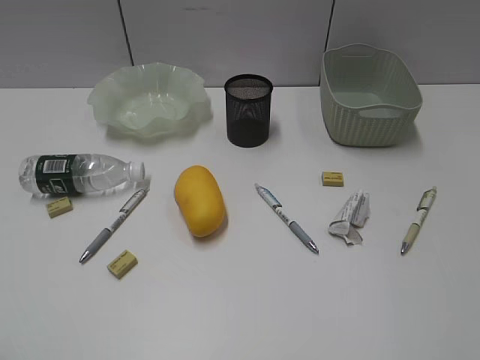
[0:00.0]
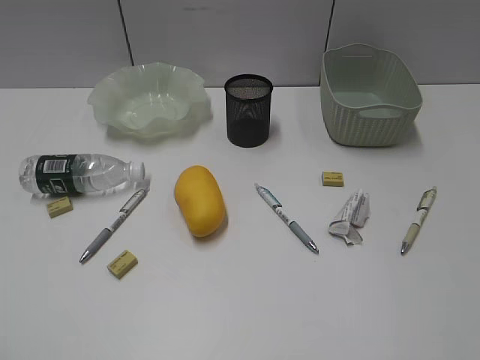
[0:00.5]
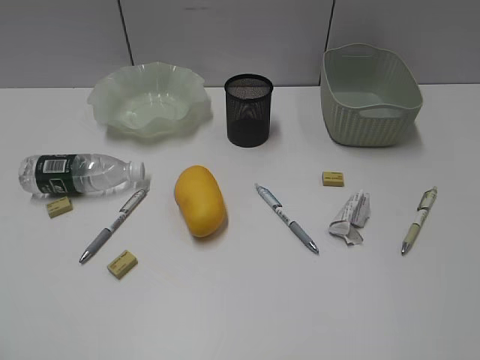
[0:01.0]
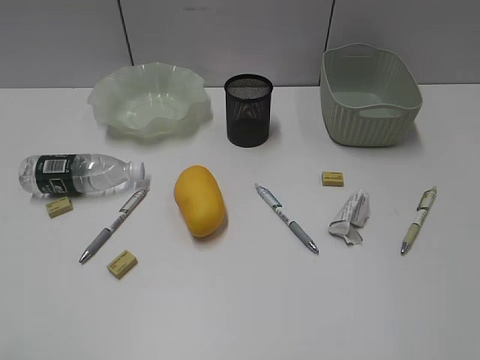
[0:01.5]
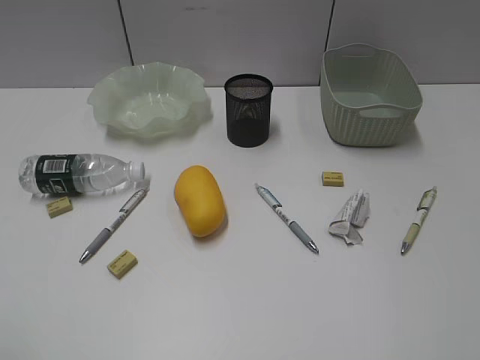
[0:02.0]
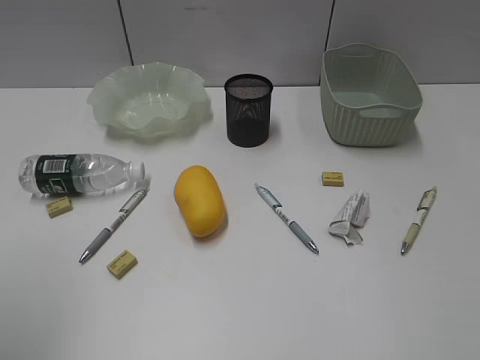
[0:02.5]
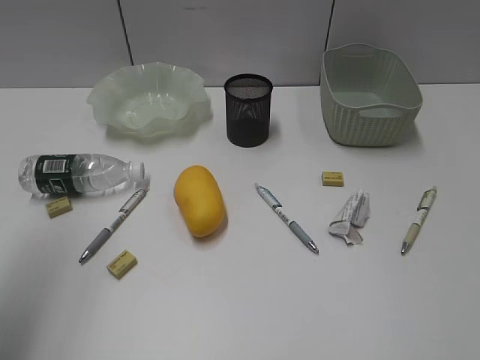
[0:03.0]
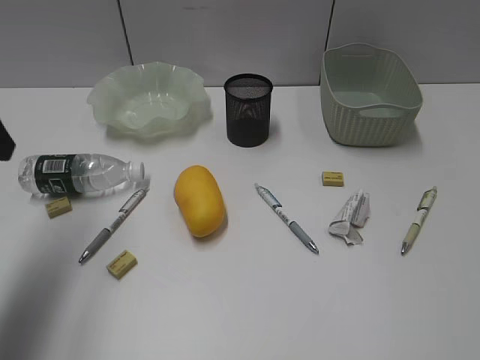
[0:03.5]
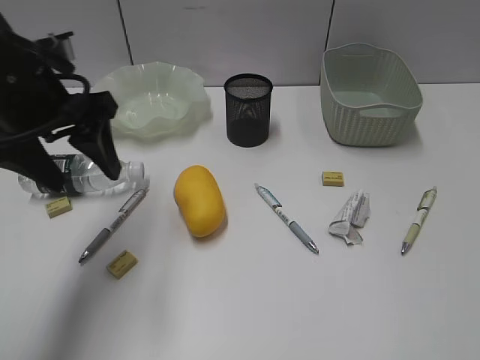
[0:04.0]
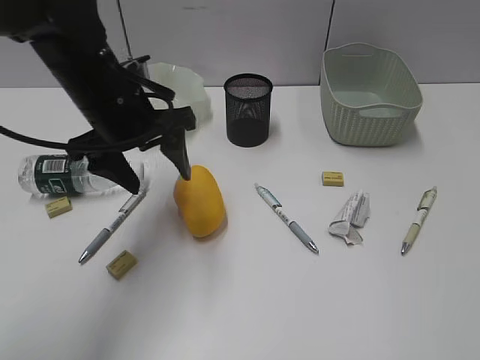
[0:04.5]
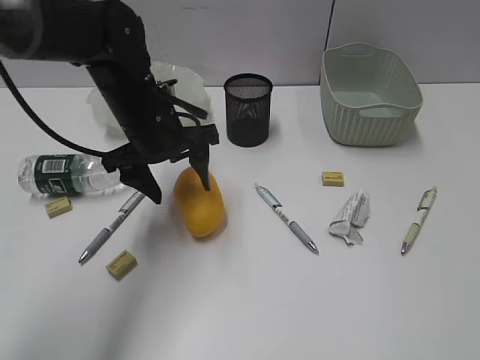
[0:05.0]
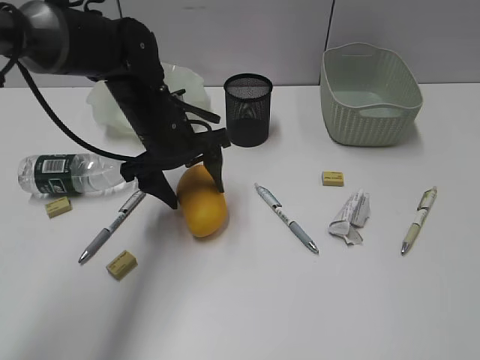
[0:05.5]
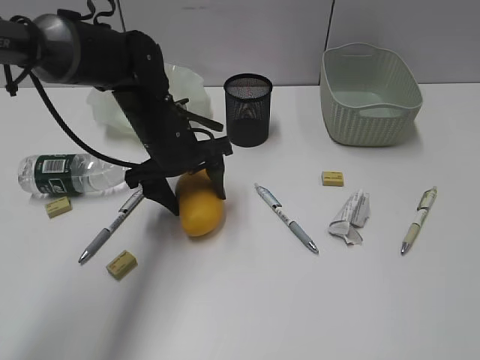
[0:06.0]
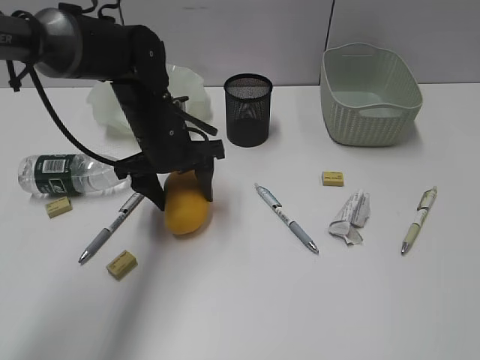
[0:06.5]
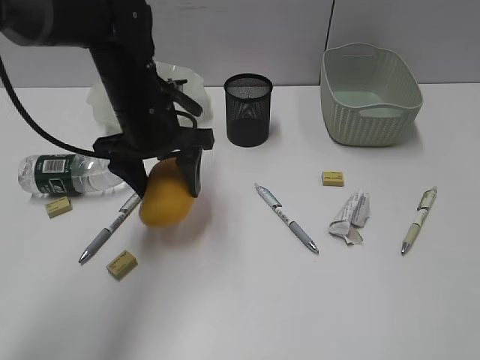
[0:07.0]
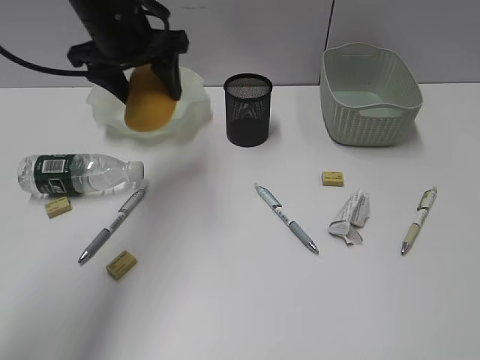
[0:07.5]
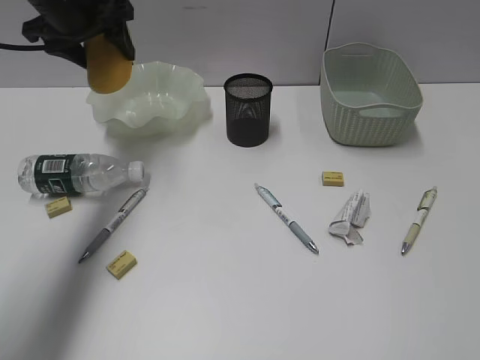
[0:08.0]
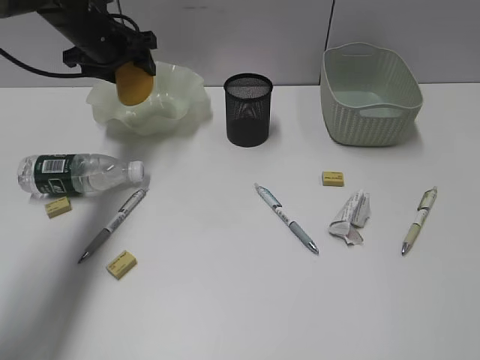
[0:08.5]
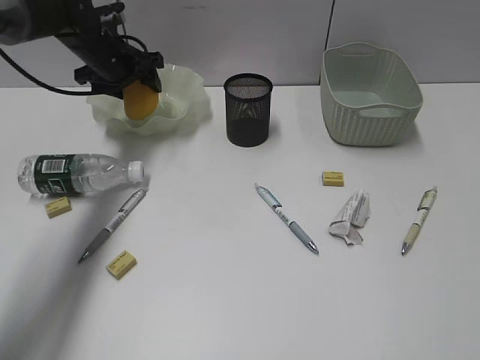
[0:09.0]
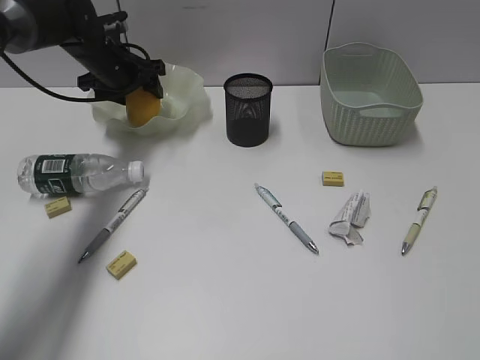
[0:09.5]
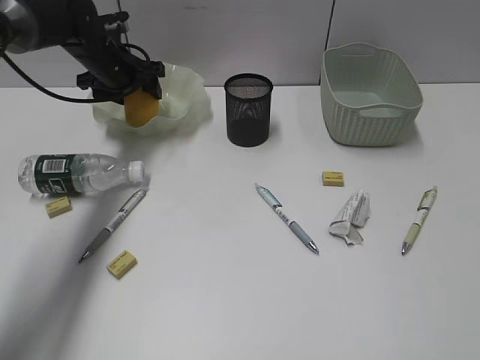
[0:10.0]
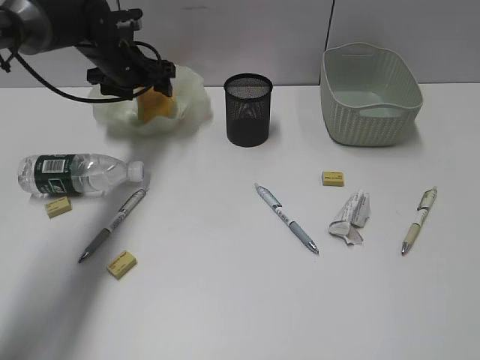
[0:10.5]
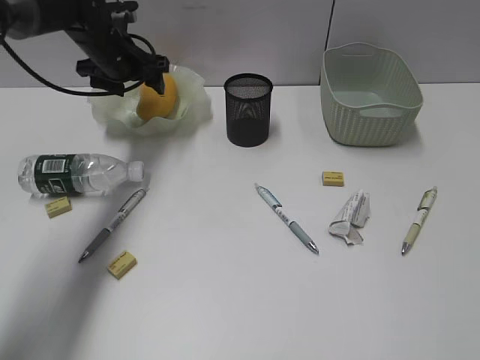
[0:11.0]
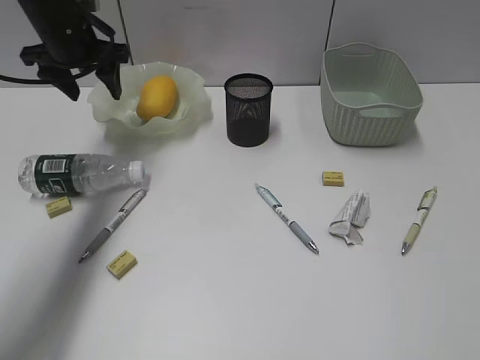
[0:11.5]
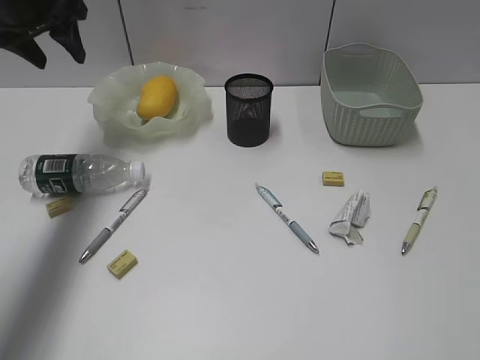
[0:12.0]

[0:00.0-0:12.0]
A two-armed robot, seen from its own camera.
Step, 0:03.5 to 0:06.5: Grasp the mango with left gripper.
Step, 0:07.0 to 0:11.0: Place the mango in the plate with left gripper.
0:02.0 to 0:04.0: The left gripper goes some 30 cm forward and to the right.
0:04.0 to 0:06.0: The left gripper heads downward, to the right and forward, covering some 20 cm.
0:06.0 to 0:08.0: The left gripper goes roughly 20 cm upward, to the left and forward.
0:08.0 to 0:10.0: The left gripper goes about 15 cm downward and forward.
0:10.0 to 0:12.0: The left gripper goes about 15 cm upward, to the left and backward.

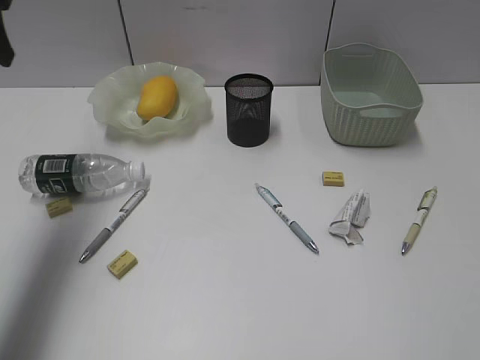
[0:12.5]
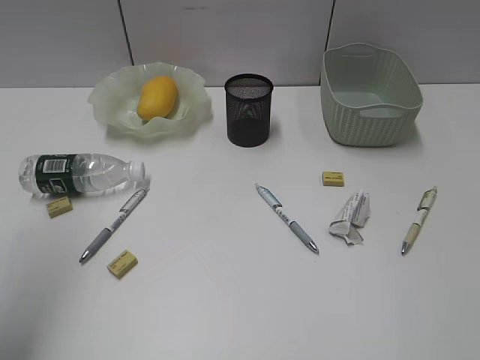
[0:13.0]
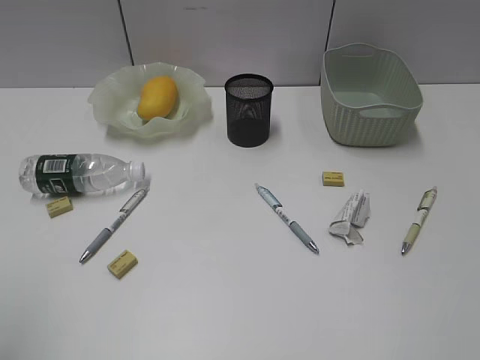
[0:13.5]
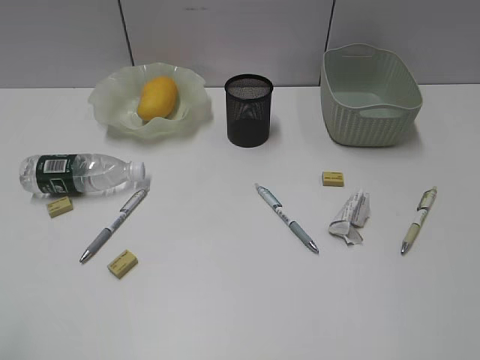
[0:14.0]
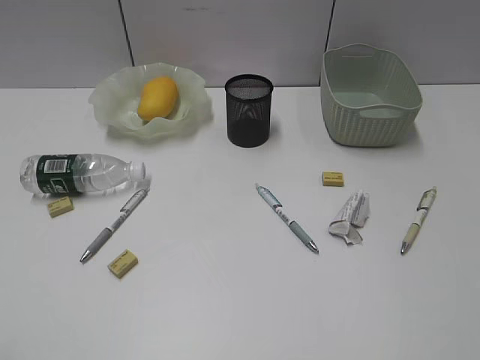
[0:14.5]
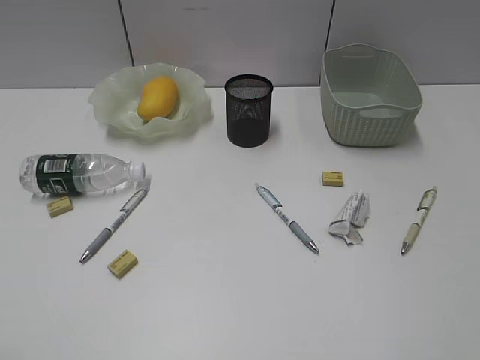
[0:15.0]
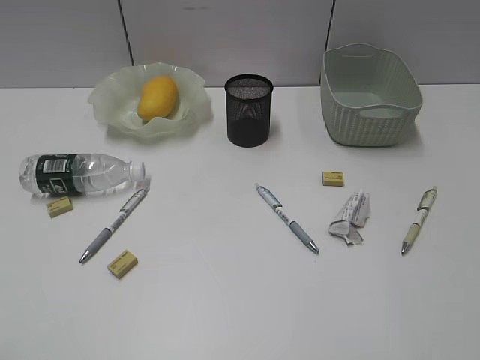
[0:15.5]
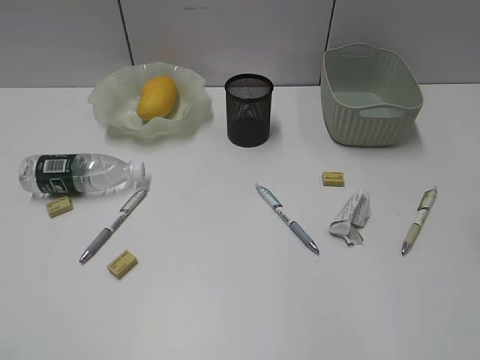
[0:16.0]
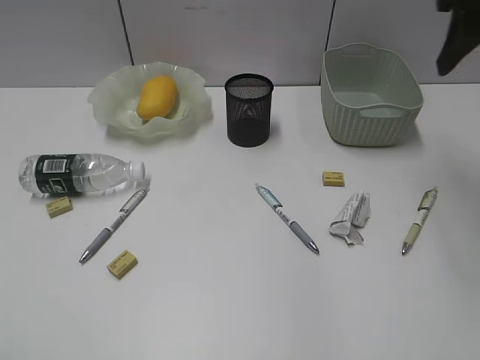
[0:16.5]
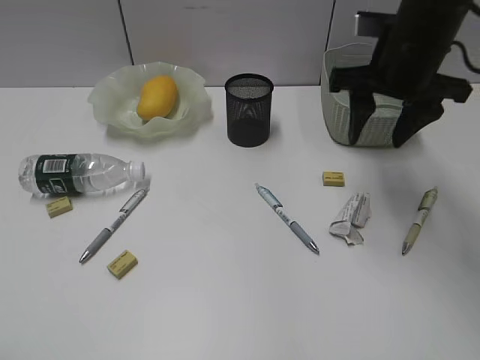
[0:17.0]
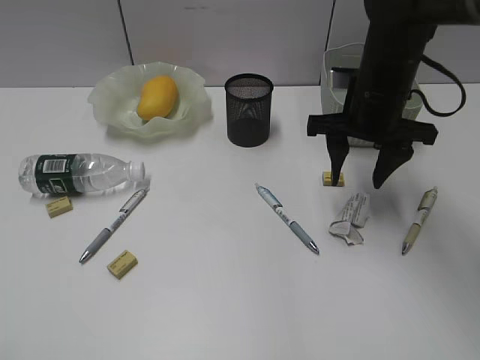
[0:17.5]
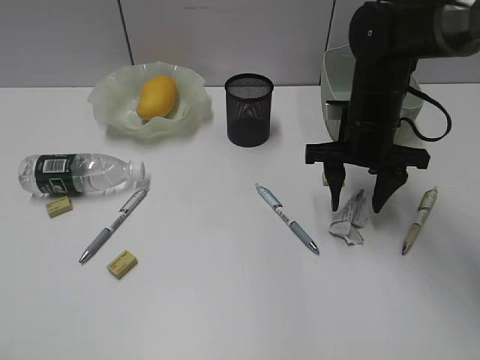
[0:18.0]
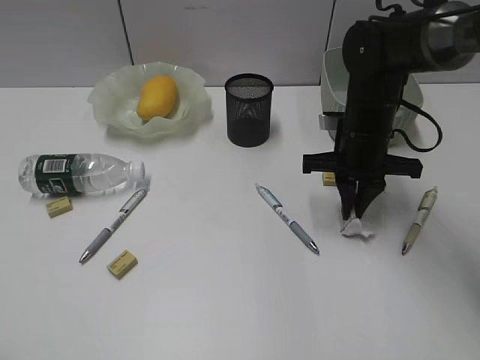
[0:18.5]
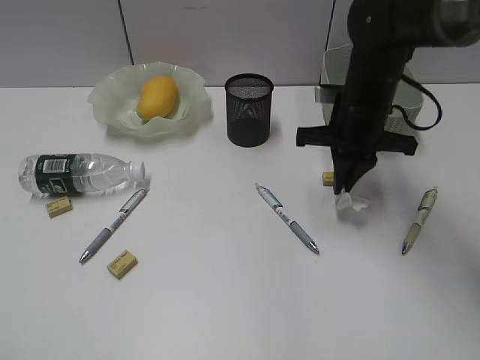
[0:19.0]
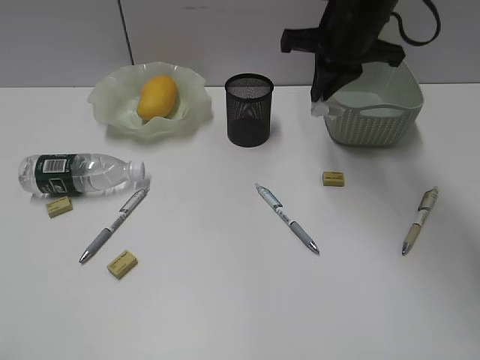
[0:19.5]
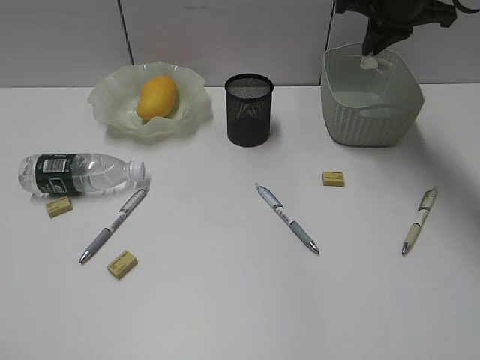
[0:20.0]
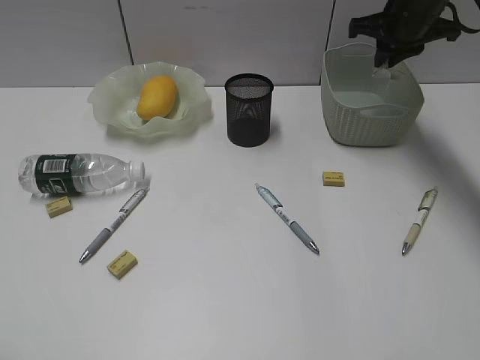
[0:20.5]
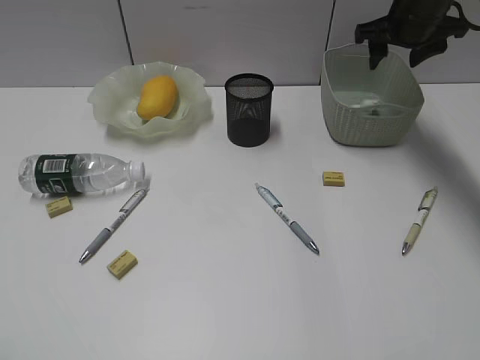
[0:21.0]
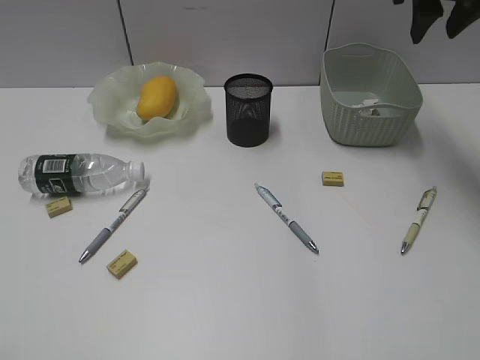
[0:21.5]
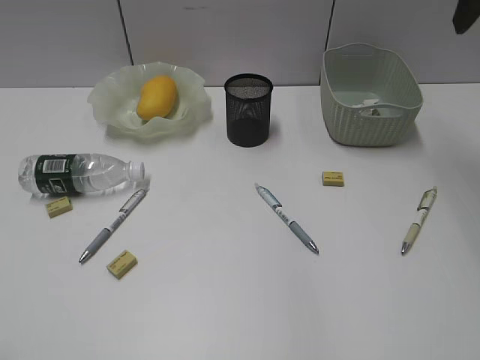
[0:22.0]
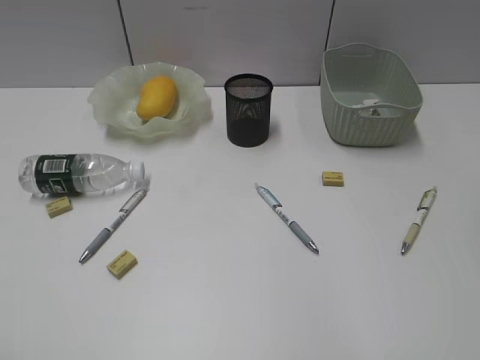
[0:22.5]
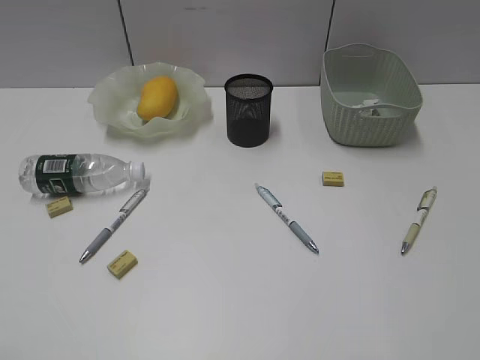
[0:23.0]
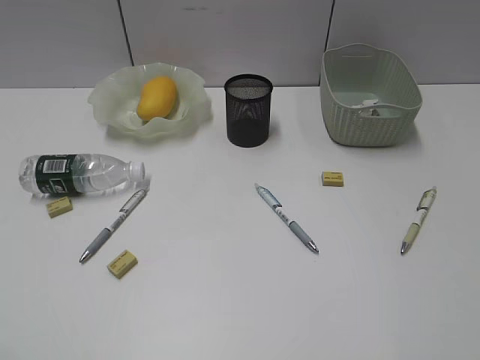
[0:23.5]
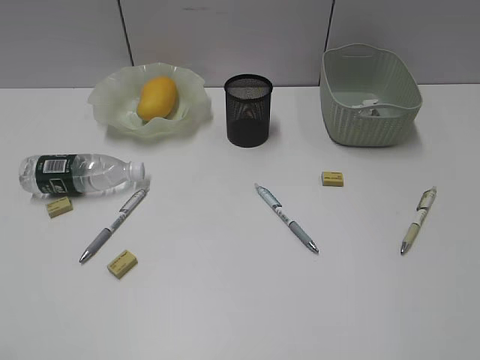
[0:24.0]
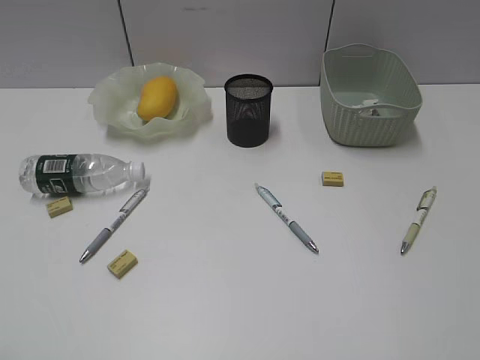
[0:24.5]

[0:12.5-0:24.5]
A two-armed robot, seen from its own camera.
Step, 0:12.5 to 0:18.5: Grasp the waste paper with right gripper.
Step, 0:19.0 to 0:20.5: Place the waste paper in the basket with right gripper.
0:12.5 to 0:14.5: The left gripper moves backward, about 35 cm.
0:14.5 to 0:16.5: The right gripper is displaced forward by about 35 cm.
0:16.5 to 0:18.5: The right gripper is displaced downward and to the left by about 25 cm, and closes its fingers.
0:18.5 to 0:20.5: The right gripper heads upward, forward and to the right, covering approximately 20 cm.
0:20.5 to 0:22.5: The right gripper heads backward and upward, covering approximately 30 cm, and opens up.

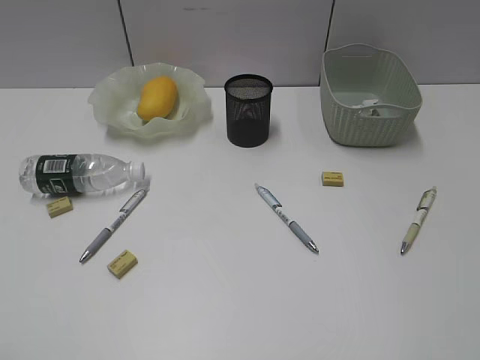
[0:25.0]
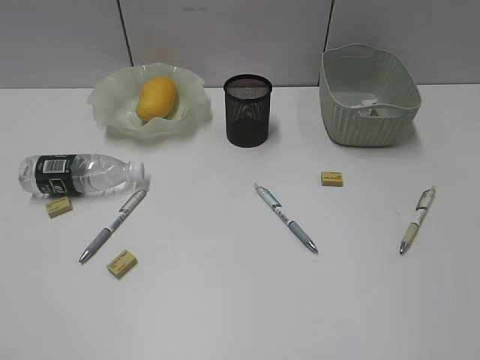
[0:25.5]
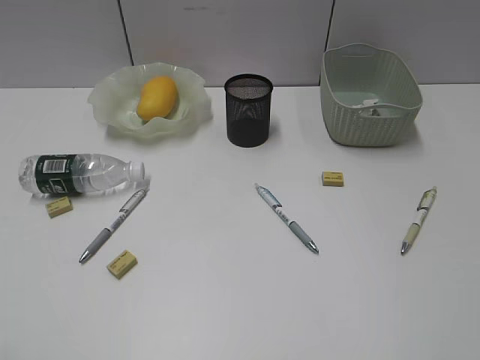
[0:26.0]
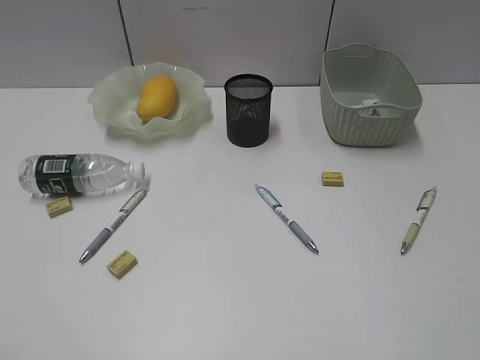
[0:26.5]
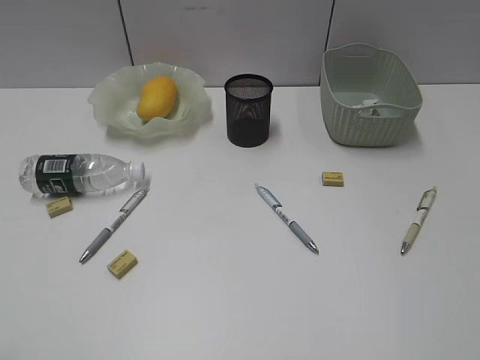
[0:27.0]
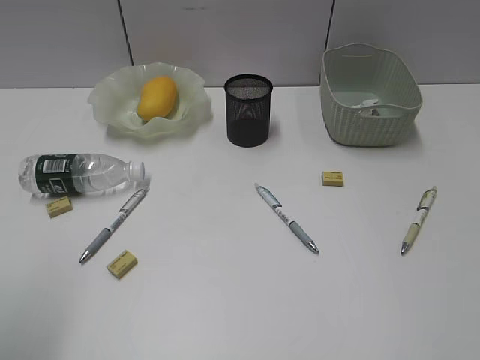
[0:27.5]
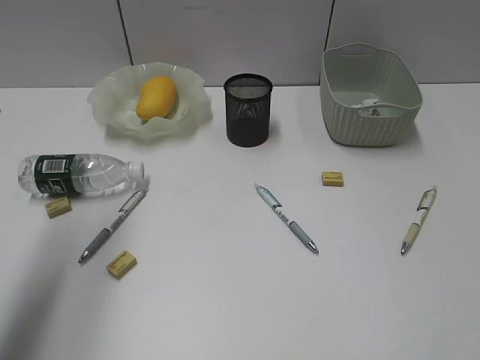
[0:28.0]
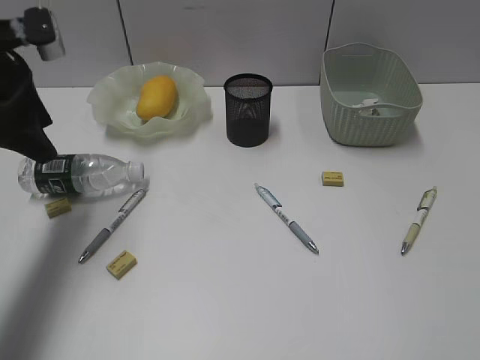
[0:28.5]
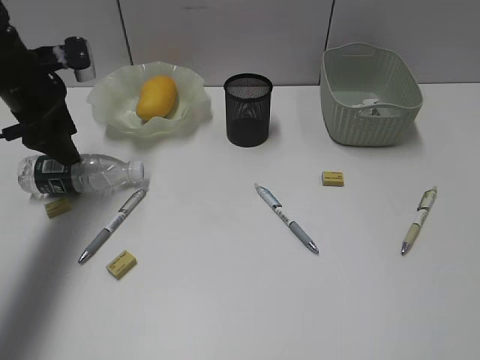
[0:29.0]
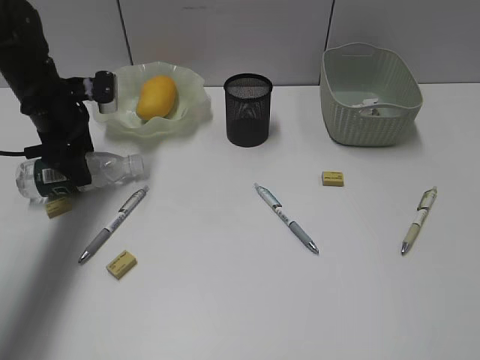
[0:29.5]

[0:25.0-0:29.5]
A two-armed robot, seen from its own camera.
0:27.0 to 0:29.5: The left gripper is displaced forward by roughly 40 cm.
